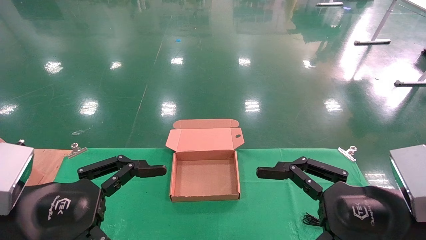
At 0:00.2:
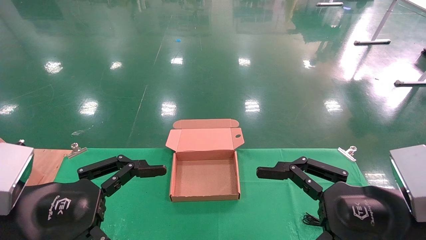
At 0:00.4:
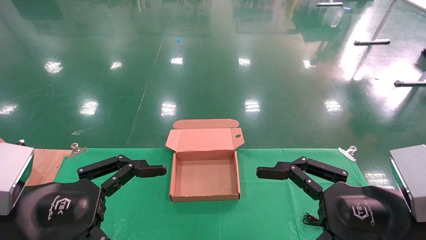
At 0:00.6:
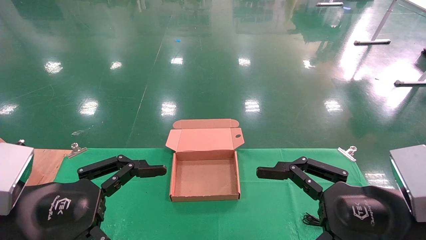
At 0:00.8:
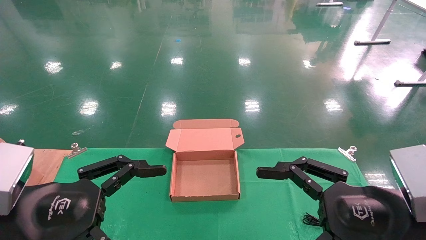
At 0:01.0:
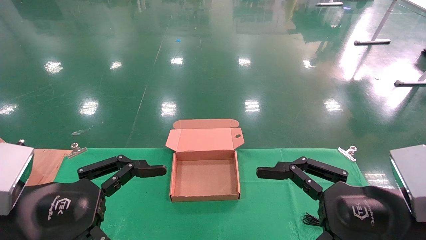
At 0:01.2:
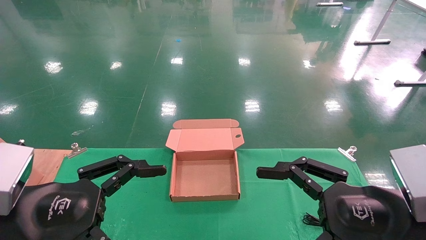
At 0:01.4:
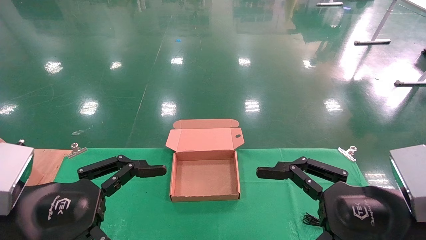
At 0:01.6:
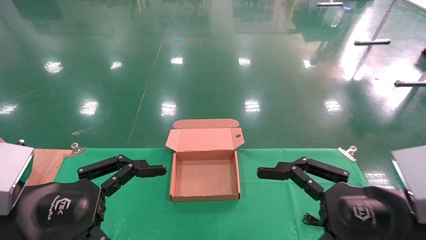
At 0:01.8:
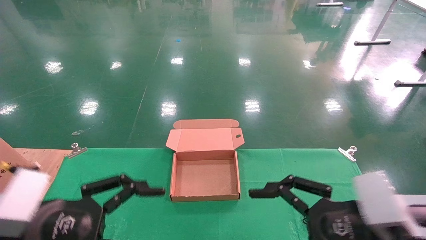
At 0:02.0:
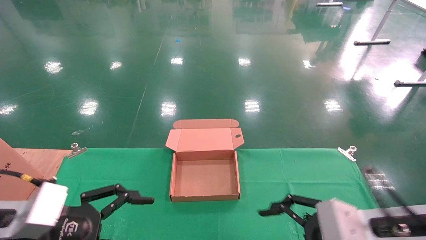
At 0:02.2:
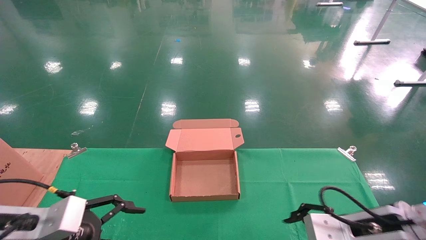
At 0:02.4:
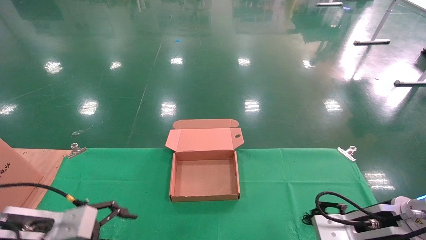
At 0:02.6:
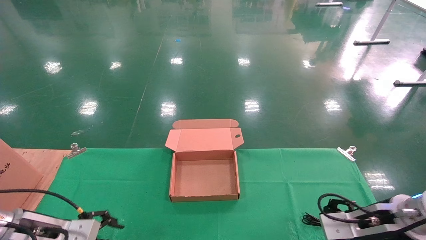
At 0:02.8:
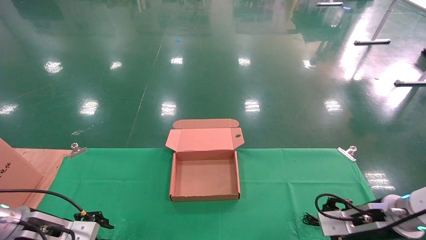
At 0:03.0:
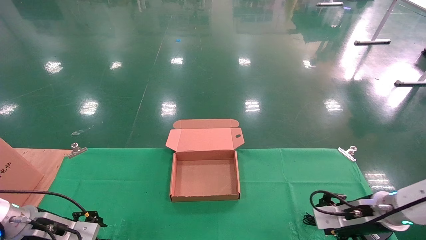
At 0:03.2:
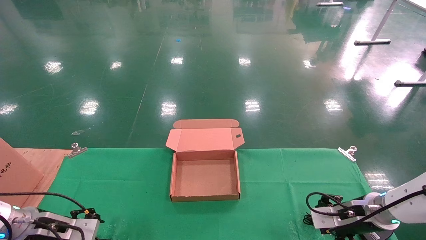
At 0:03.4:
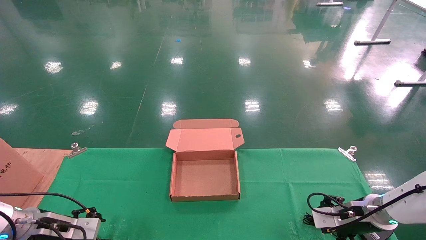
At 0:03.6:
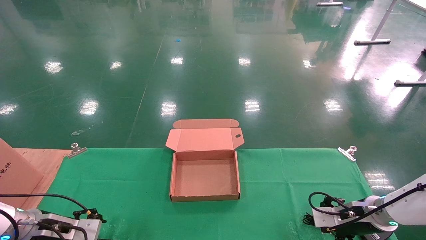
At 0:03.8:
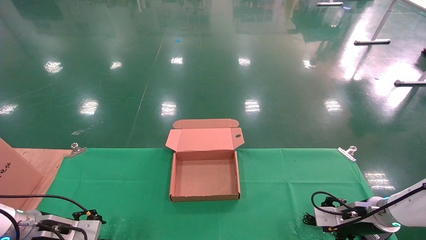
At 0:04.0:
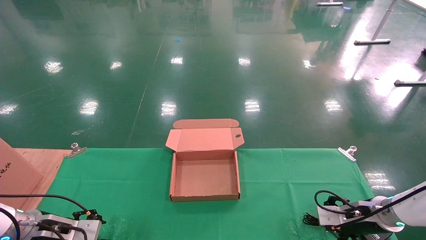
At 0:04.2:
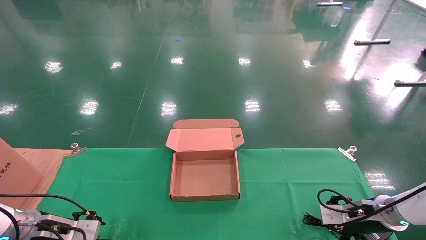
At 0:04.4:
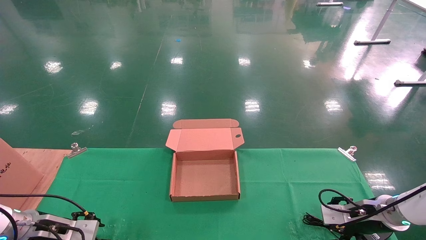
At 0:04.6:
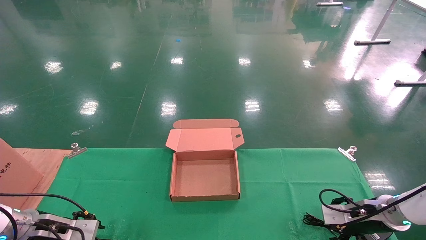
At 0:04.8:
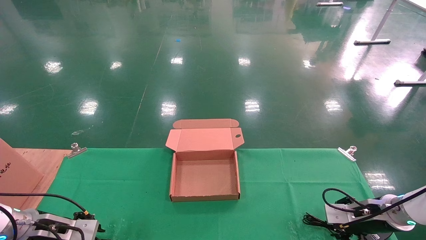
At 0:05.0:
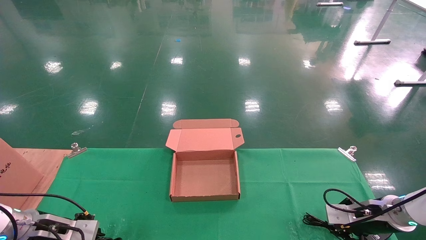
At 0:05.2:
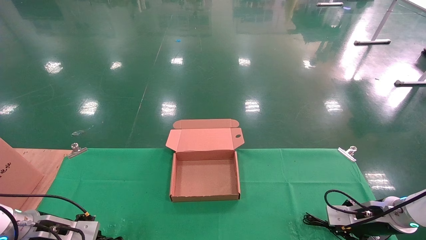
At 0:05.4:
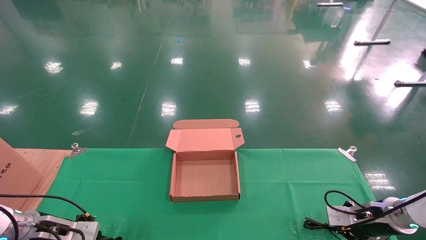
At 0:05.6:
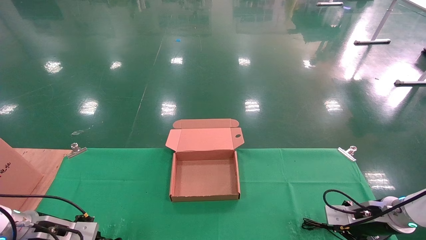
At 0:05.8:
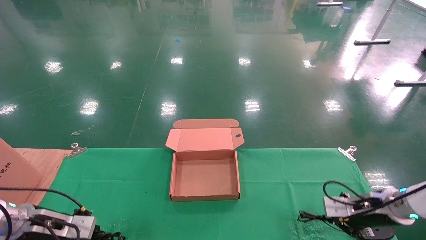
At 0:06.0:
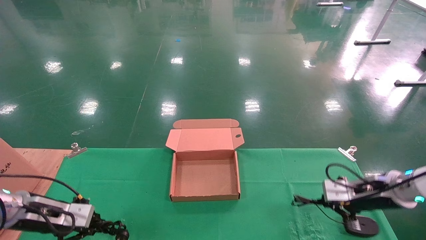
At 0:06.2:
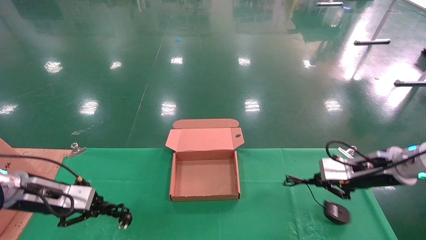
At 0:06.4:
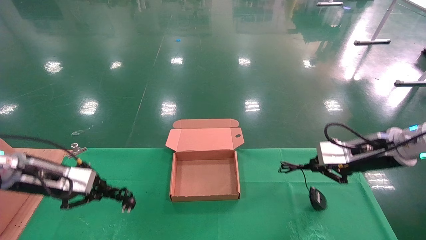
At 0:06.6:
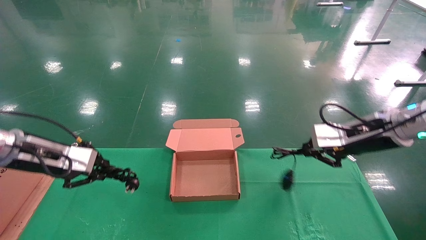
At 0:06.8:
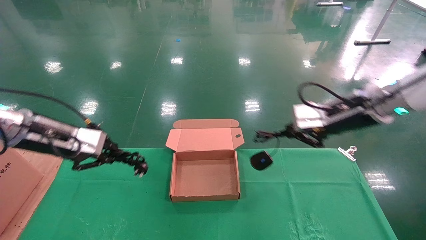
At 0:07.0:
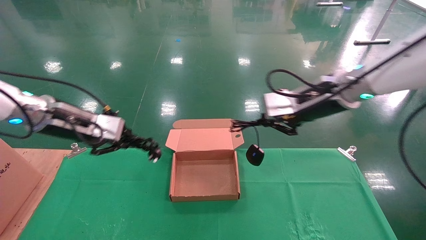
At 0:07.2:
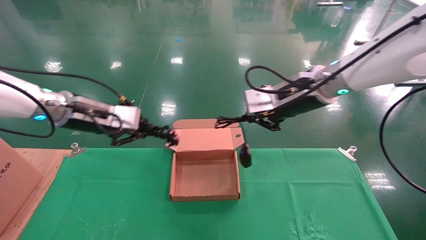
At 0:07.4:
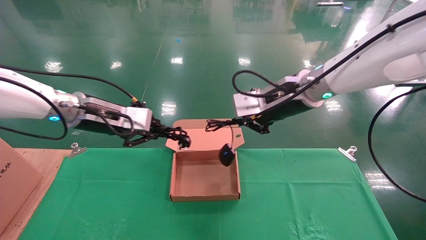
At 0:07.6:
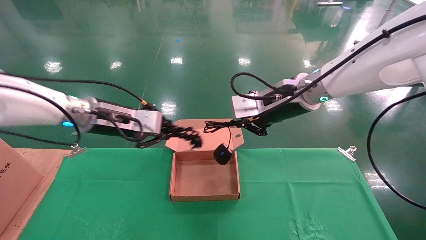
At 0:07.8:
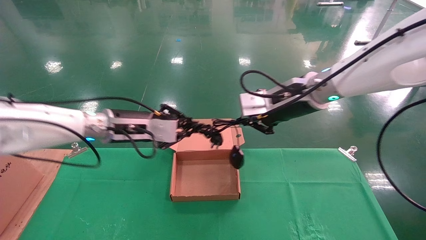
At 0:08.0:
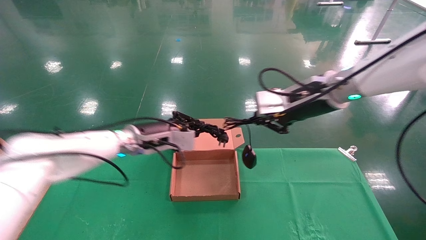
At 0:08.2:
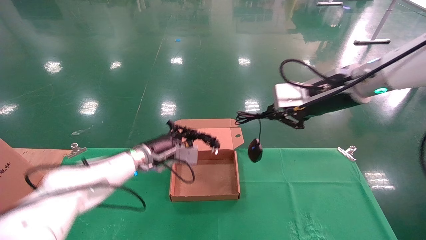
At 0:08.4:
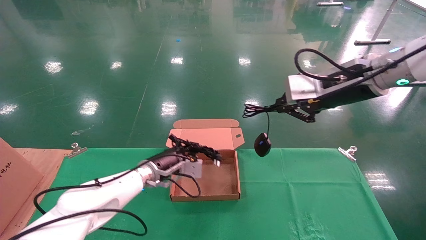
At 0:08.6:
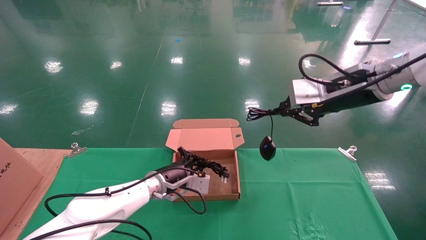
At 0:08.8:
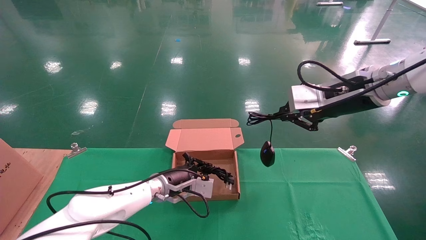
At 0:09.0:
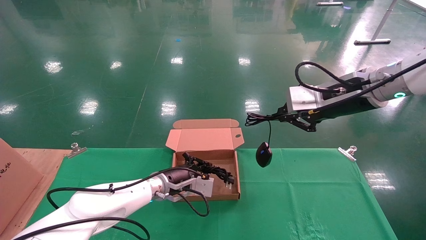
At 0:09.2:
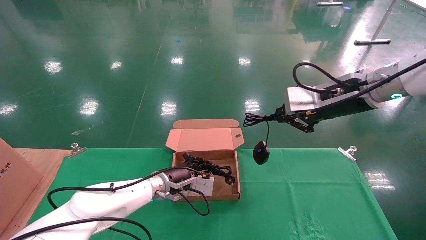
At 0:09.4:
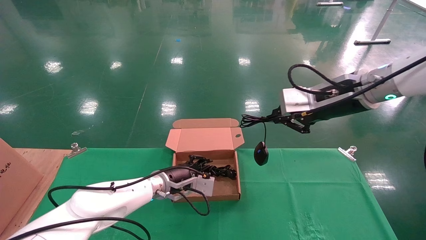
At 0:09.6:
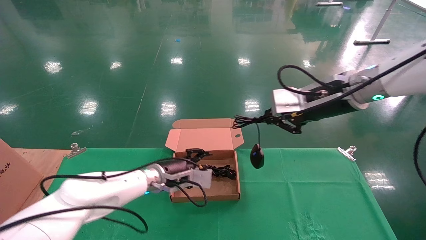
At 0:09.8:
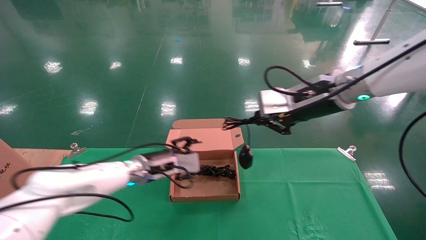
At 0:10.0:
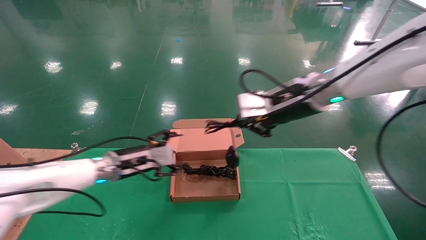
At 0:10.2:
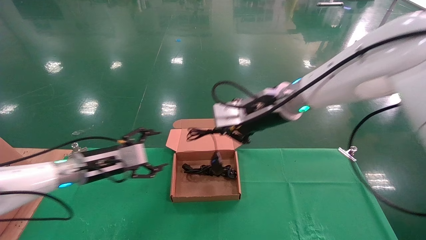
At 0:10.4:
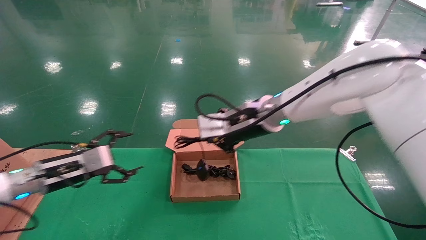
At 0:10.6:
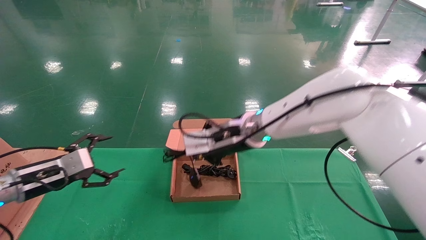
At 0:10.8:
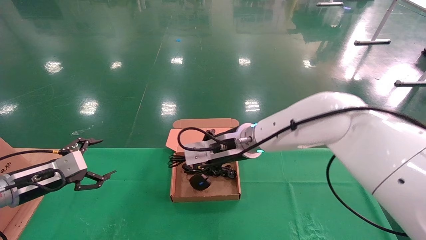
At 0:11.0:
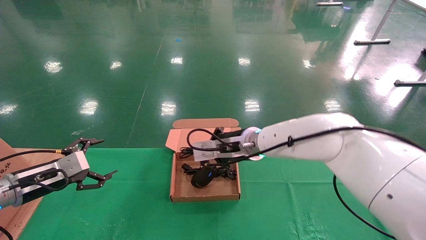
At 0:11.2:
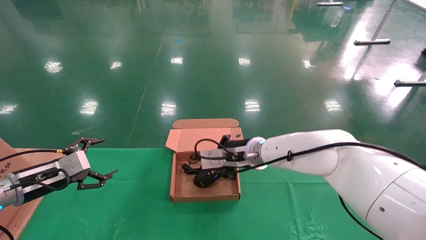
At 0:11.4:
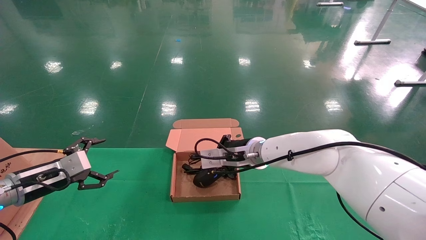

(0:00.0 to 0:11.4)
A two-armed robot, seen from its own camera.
Step, 0:01.8 - 0:06.0: Grab and lift both the mouse and power cord from the accessory packaging area at the same time.
0:00.0 - 0:01.4: The two grippers keep their place.
0:01.4 - 0:02.8: The right gripper goes about 20 cm forward and downward. The left gripper shifts roughly 20 cm forward, downward and to the left.
0:02.8 - 0:04.2: The left gripper shifts by roughly 5 cm. The right gripper is displaced forward by about 5 cm.
0:04.2 - 0:05.6: The left gripper closes its fingers; the right gripper closes.
0:05.6 - 0:07.2: The left gripper moves upward and to the right, about 25 cm. The right gripper shifts roughly 35 cm upward and to the left.
0:07.2 - 0:08.6: The right gripper travels to the right by approximately 5 cm; the left gripper goes approximately 25 cm downward, to the right and forward.
0:08.6 - 0:10.0: The left gripper heads to the left and upward, covering approximately 10 cm, and opens; the right gripper is displaced to the left by roughly 10 cm.
0:10.0 - 0:11.4: The left gripper shifts roughly 15 cm to the left. The right gripper travels downward, to the left and forward by approximately 20 cm.

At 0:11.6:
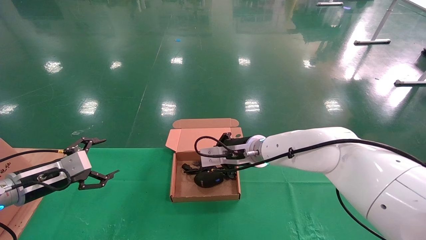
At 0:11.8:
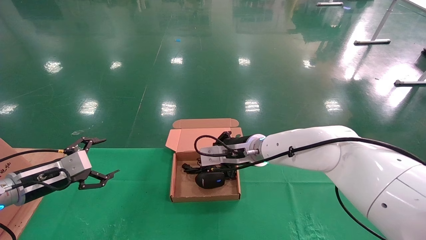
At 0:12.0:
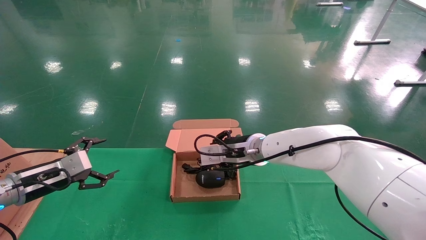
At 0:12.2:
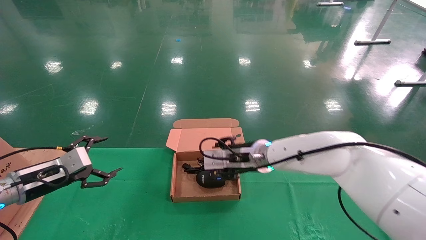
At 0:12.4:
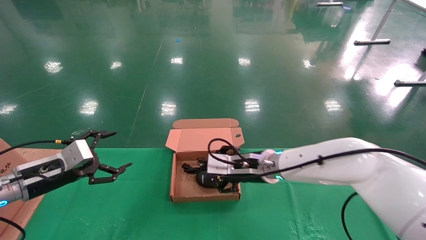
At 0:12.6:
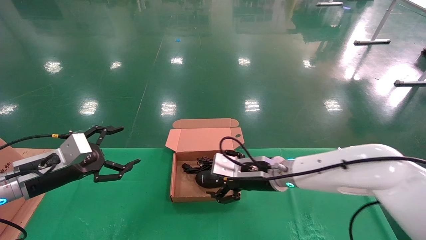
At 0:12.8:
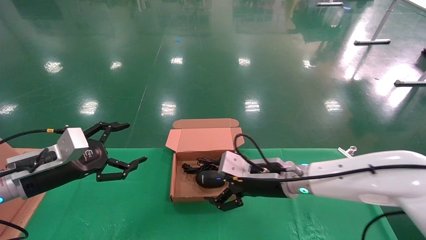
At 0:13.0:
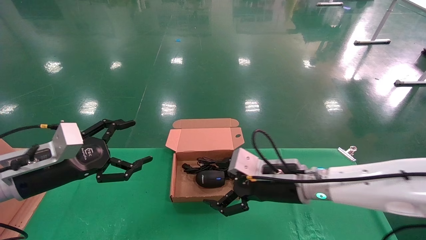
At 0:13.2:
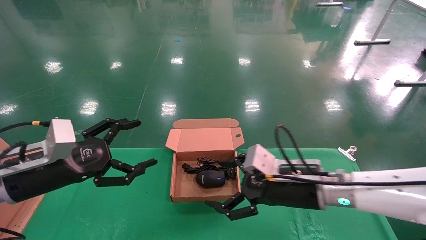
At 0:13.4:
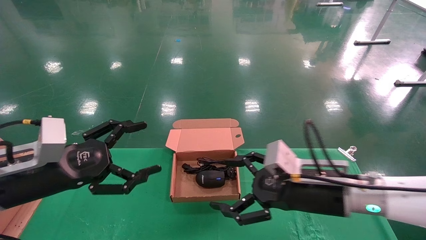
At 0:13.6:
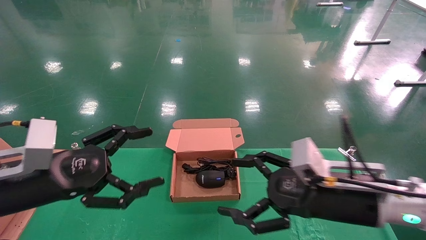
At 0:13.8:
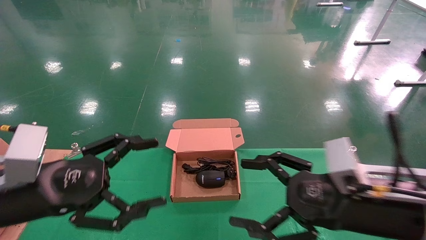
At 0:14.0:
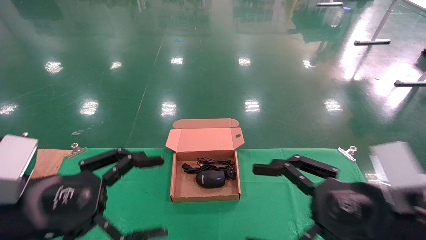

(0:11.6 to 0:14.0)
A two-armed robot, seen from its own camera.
0:11.6 - 0:12.8: The right gripper heads backward and to the right, covering approximately 10 cm, and opens up. Meanwhile the left gripper heads to the right, covering roughly 5 cm.
0:12.8 - 0:14.0: Both grippers travel together backward and to the right, roughly 20 cm.
